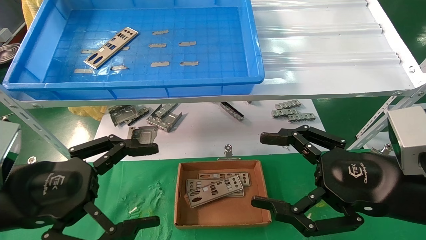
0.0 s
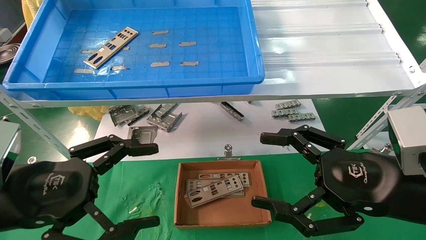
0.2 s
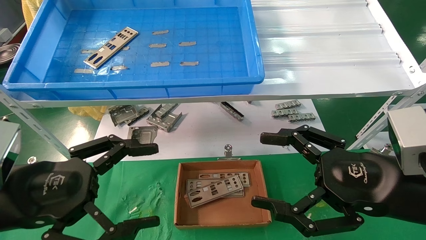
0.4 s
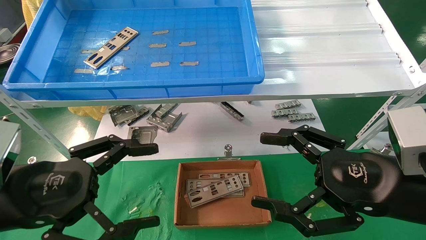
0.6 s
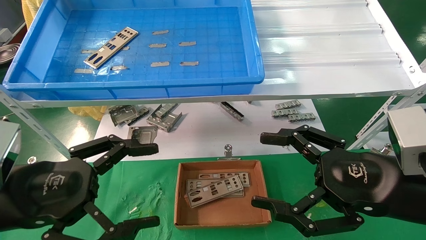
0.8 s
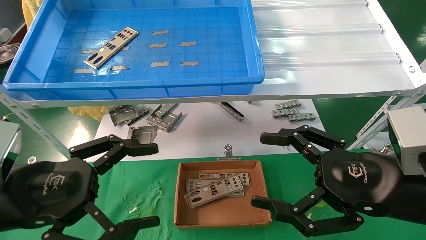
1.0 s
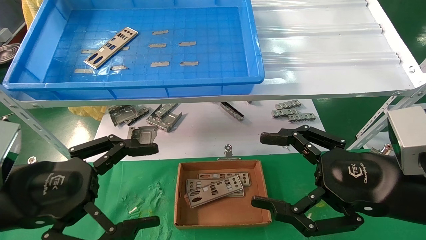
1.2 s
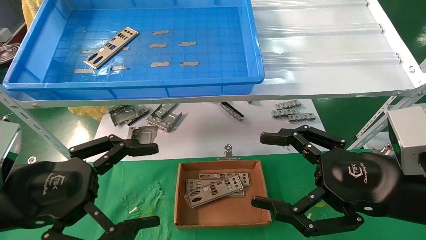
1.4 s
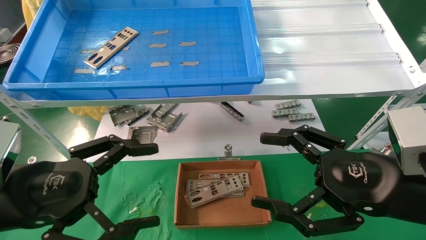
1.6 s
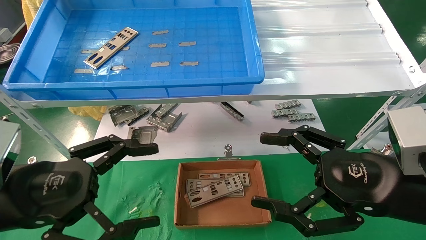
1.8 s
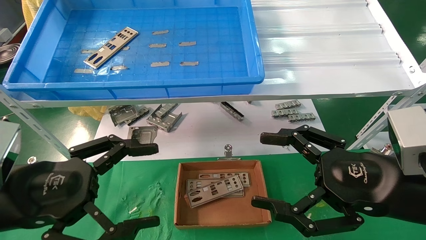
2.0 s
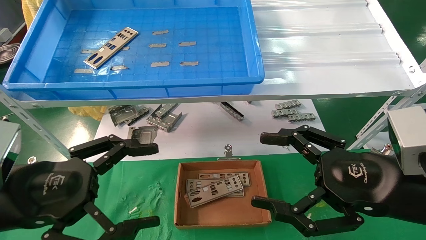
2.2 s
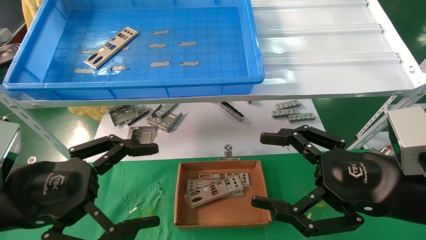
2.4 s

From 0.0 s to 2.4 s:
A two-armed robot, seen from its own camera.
Task of the whole recording: pick up the parts on the tray and put them in the cardboard box.
From 0.0 s to 2.4 s: Neither gripper changes place.
